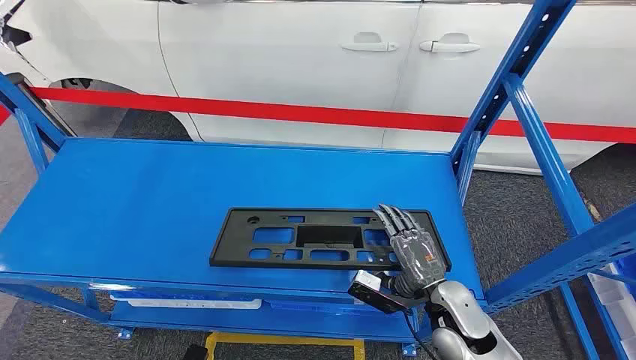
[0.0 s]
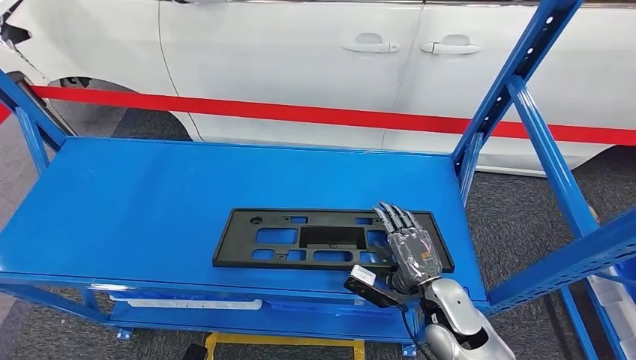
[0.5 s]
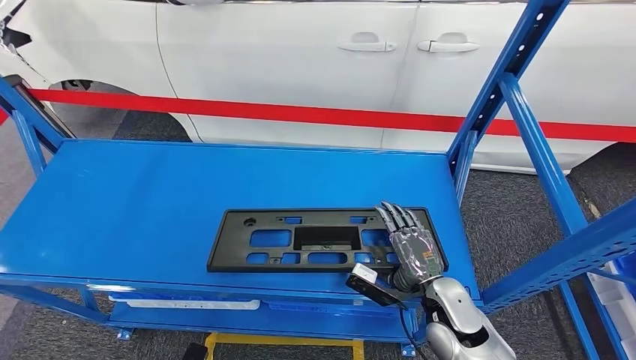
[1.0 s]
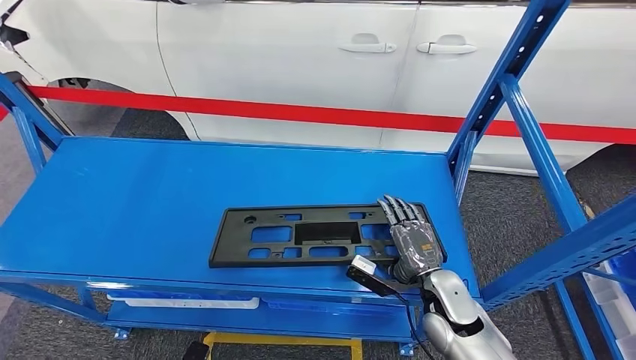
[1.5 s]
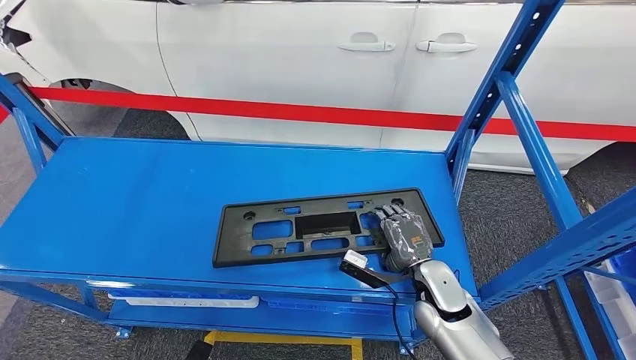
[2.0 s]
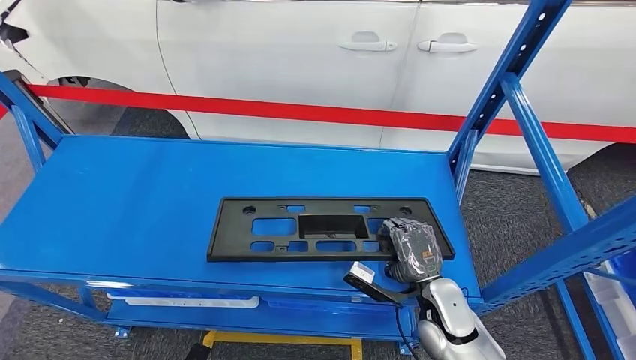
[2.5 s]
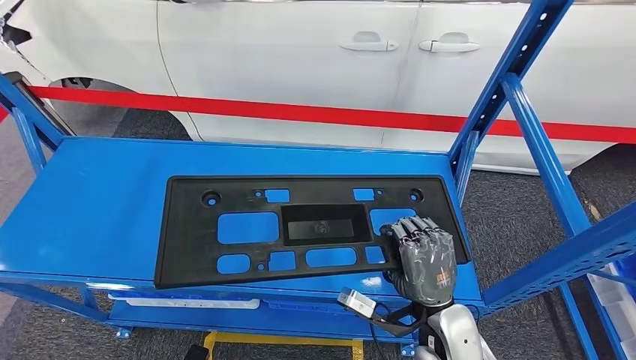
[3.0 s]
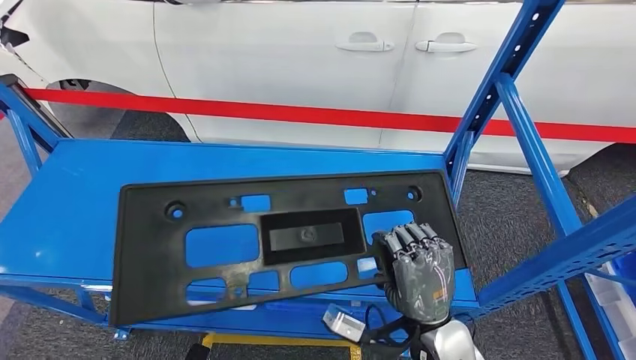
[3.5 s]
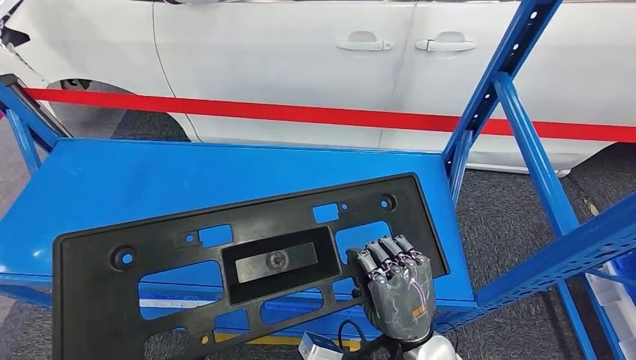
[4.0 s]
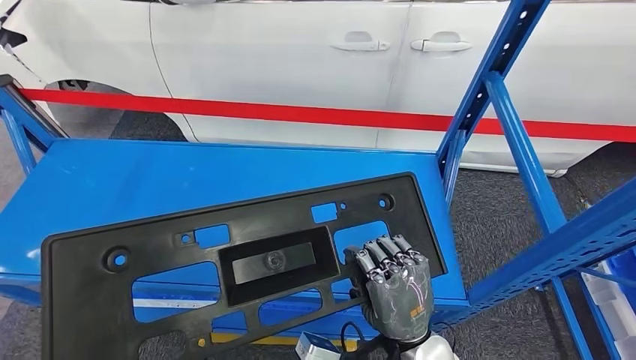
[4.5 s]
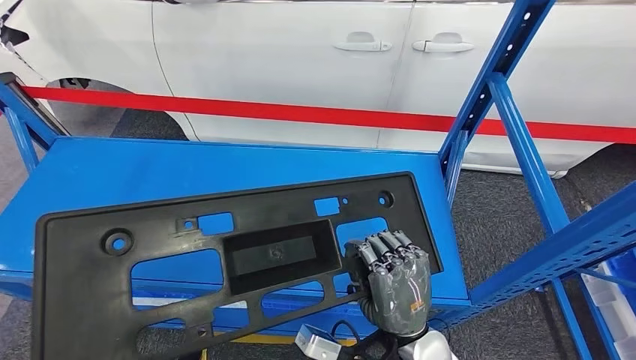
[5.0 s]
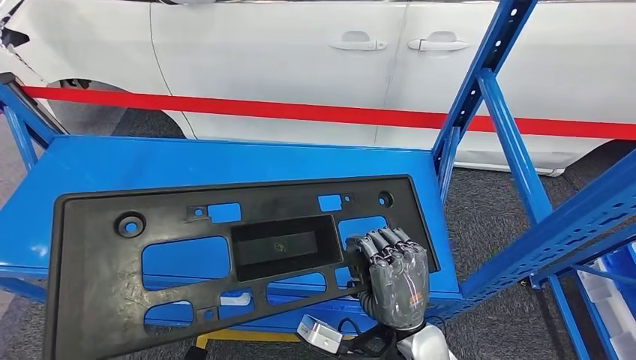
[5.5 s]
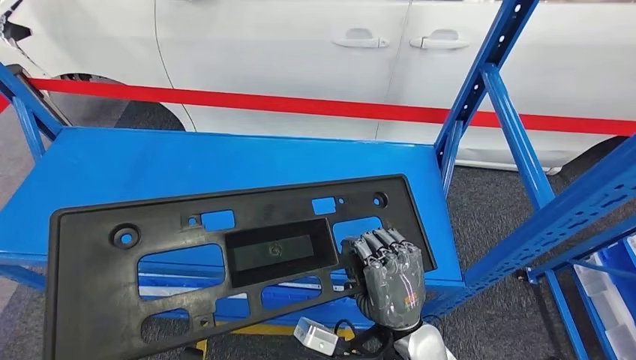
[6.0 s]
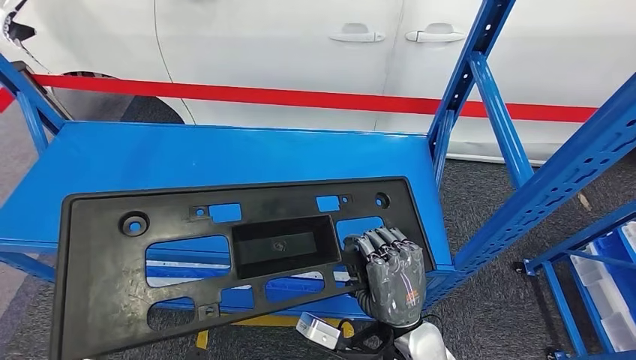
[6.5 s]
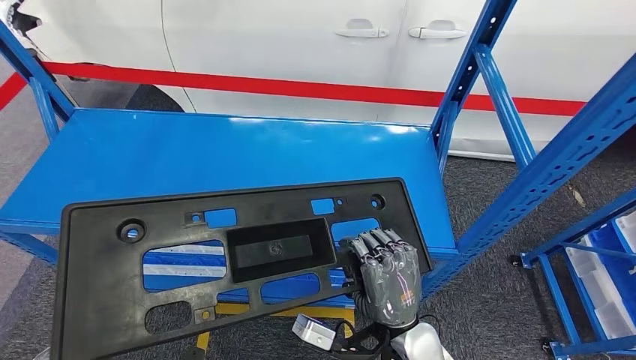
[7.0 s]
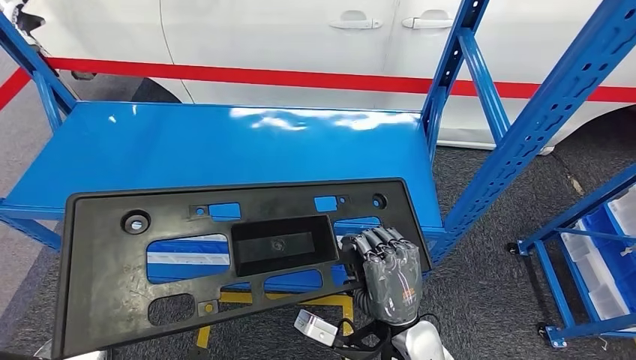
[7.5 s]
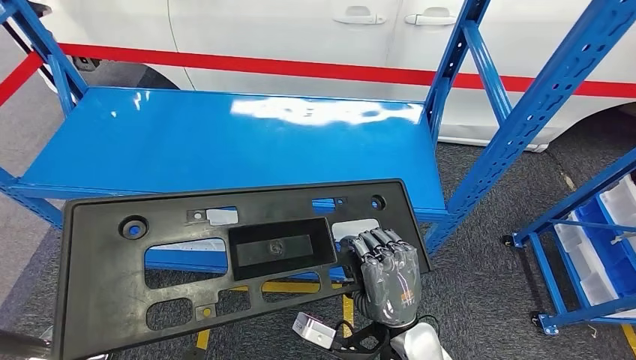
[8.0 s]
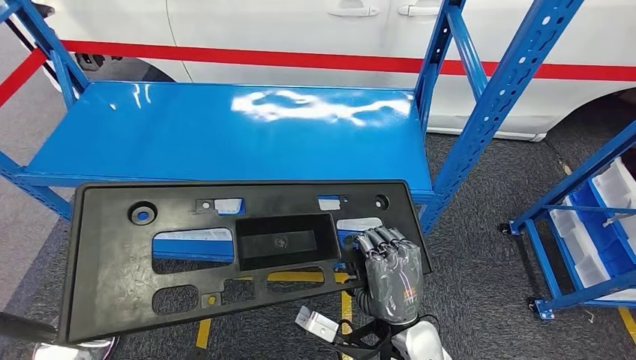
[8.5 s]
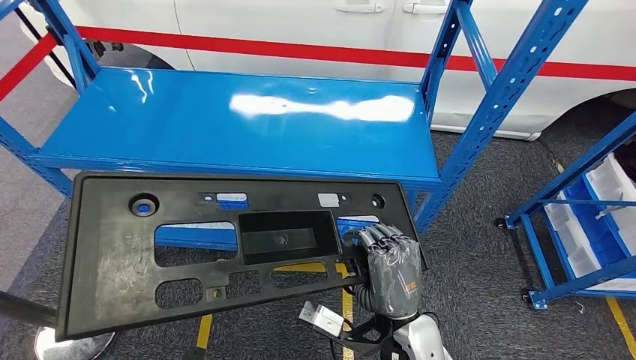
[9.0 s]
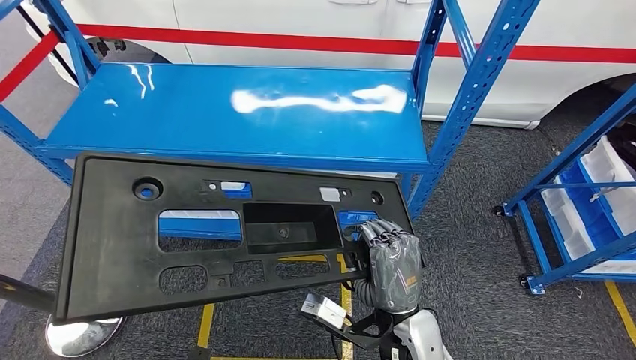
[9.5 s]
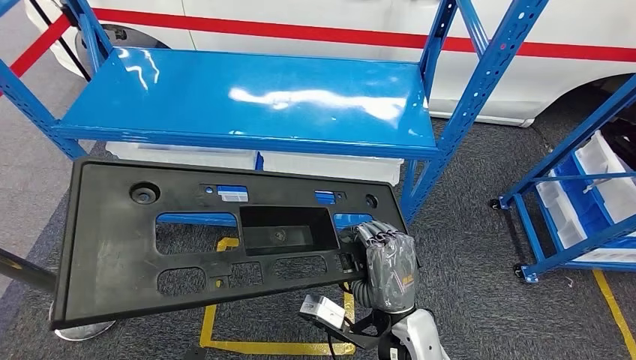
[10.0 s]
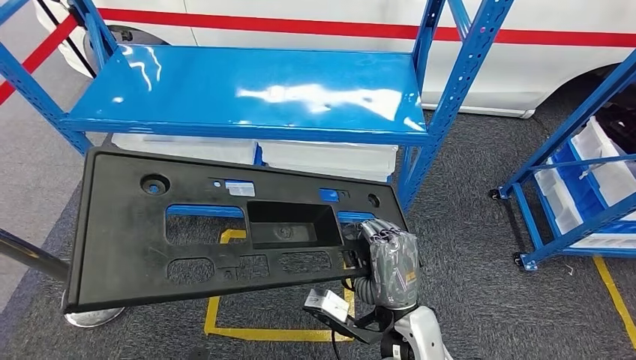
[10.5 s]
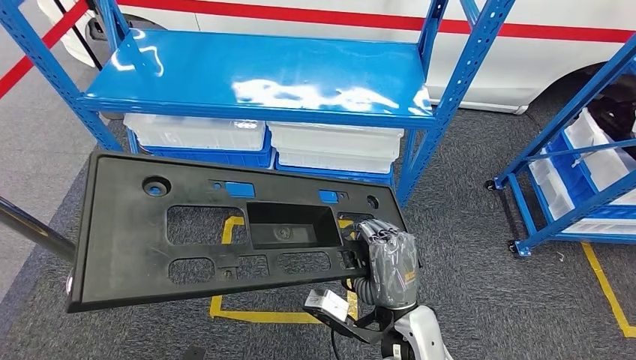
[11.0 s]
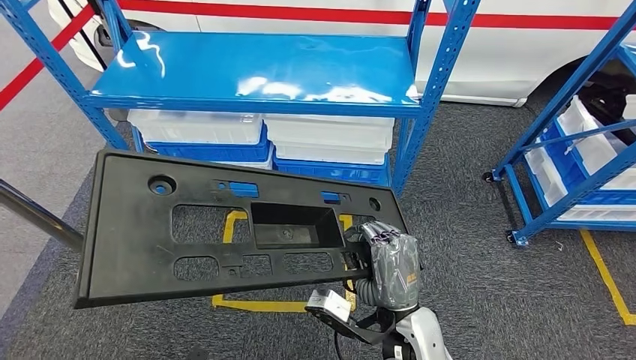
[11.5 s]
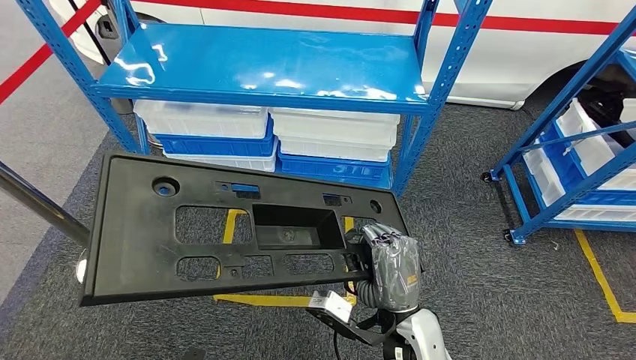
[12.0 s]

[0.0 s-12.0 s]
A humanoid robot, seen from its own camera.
Step, 0.0 to 7.5 s: Pick up the large material from the shelf.

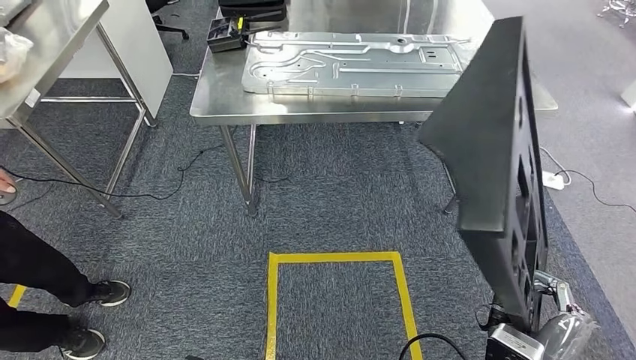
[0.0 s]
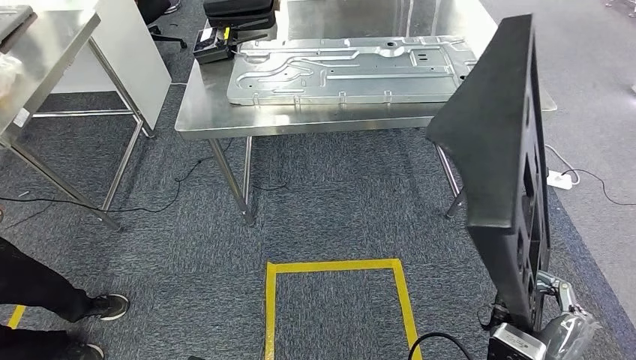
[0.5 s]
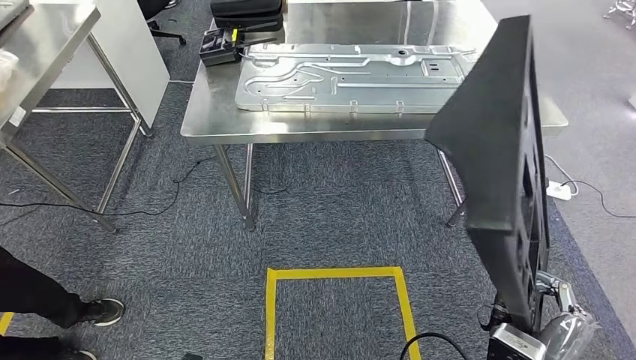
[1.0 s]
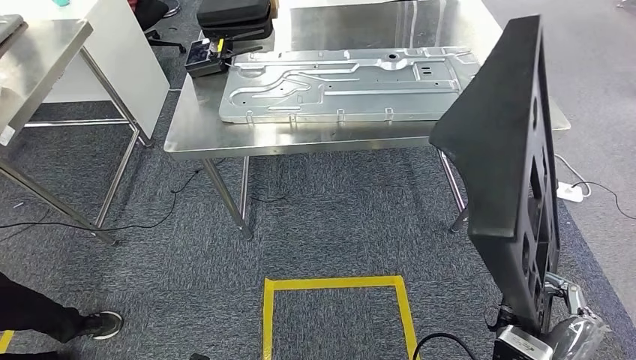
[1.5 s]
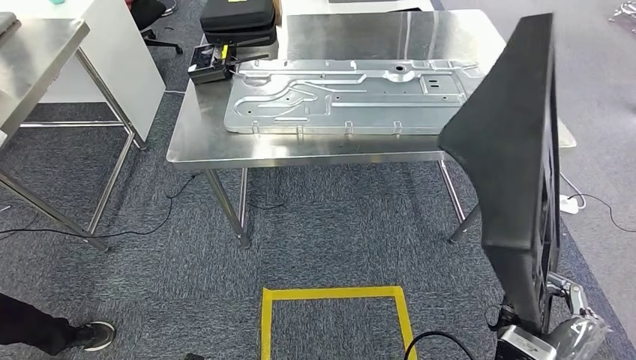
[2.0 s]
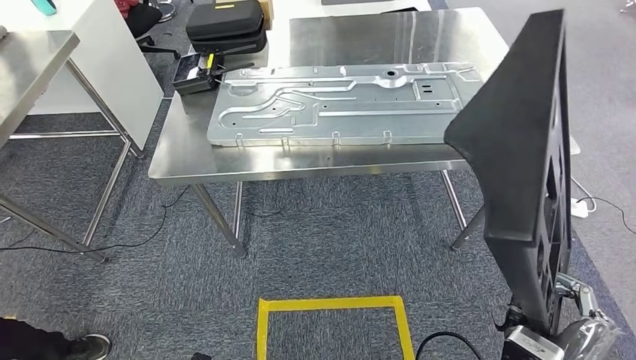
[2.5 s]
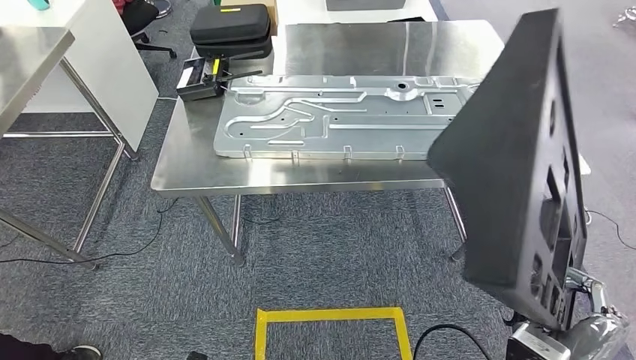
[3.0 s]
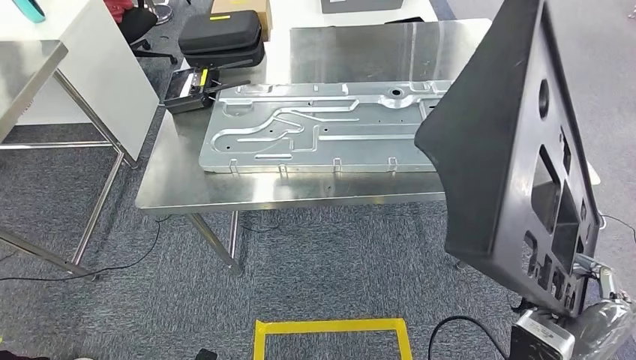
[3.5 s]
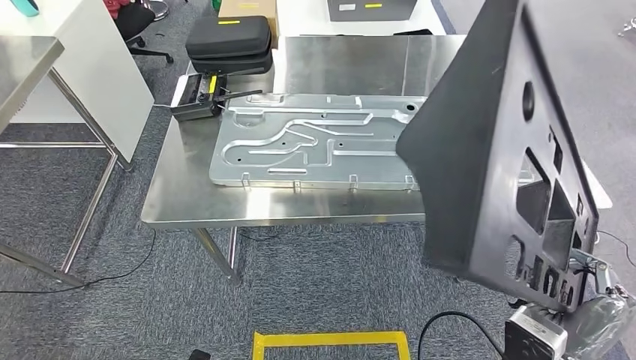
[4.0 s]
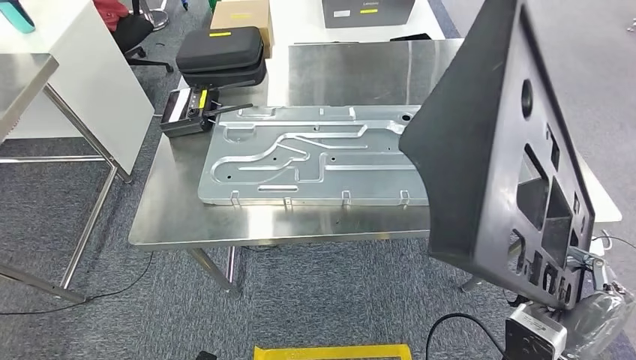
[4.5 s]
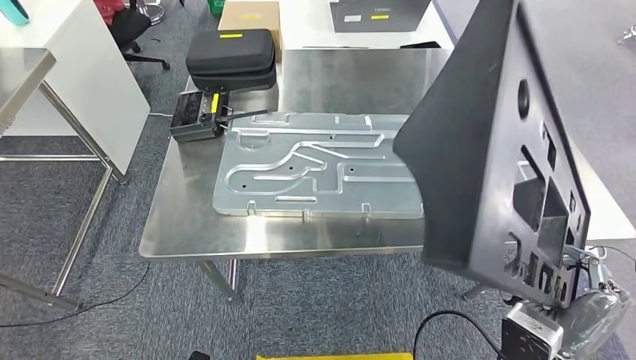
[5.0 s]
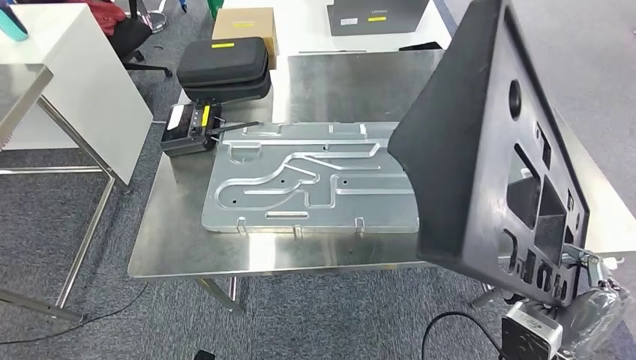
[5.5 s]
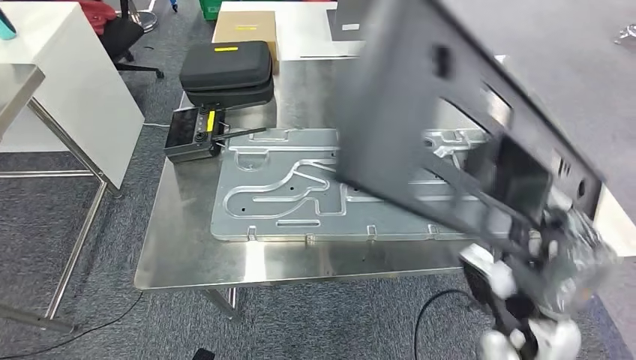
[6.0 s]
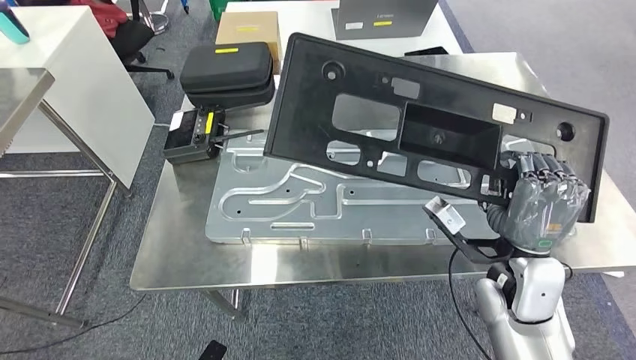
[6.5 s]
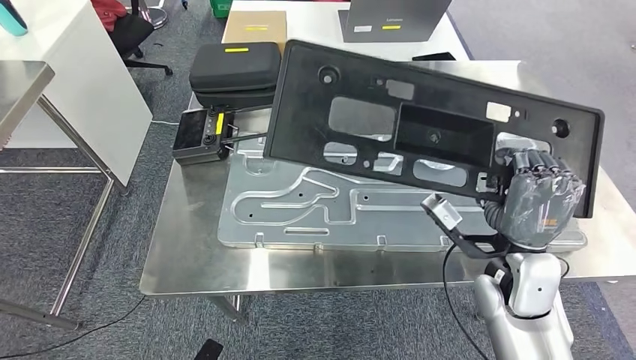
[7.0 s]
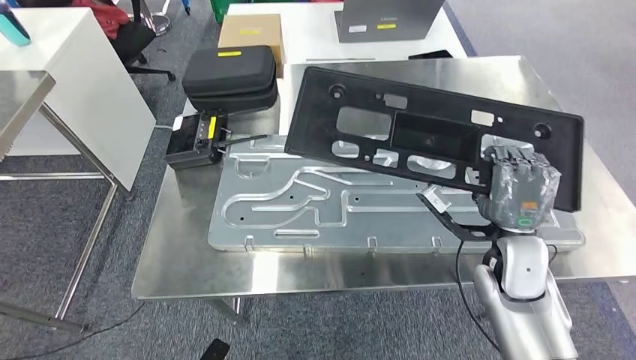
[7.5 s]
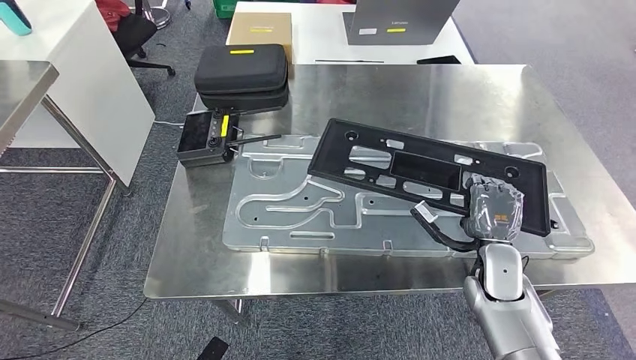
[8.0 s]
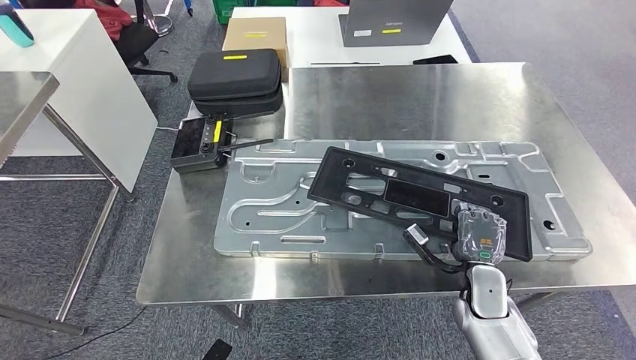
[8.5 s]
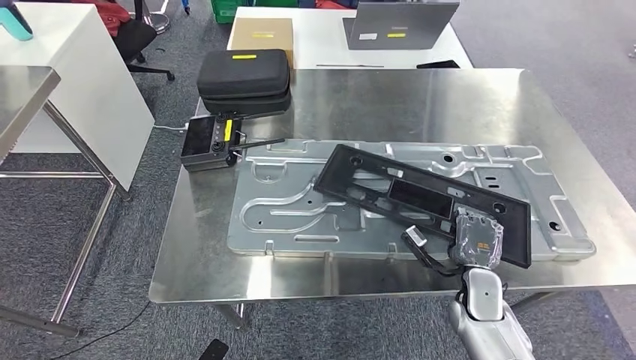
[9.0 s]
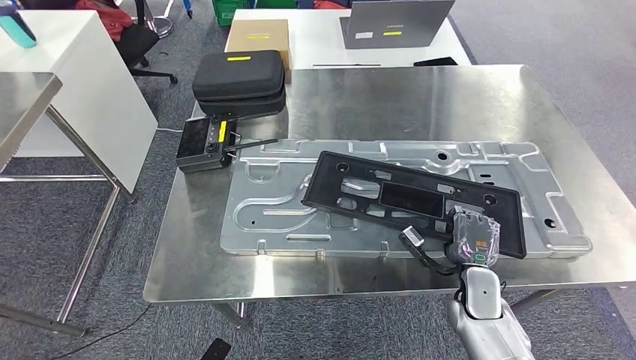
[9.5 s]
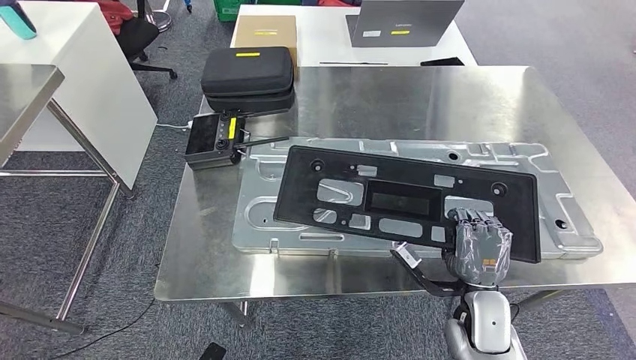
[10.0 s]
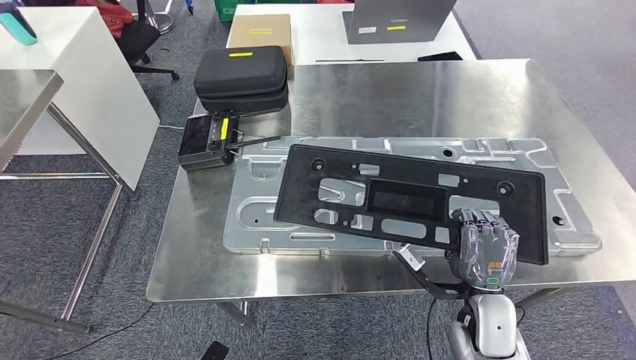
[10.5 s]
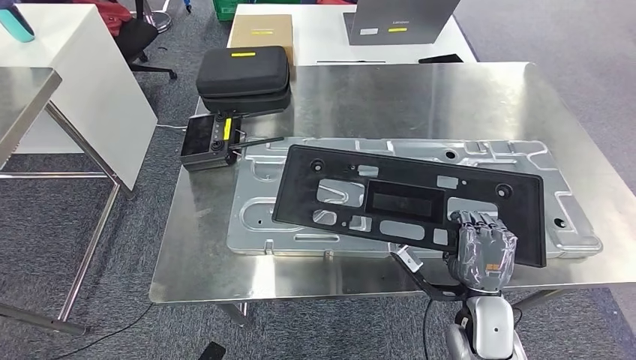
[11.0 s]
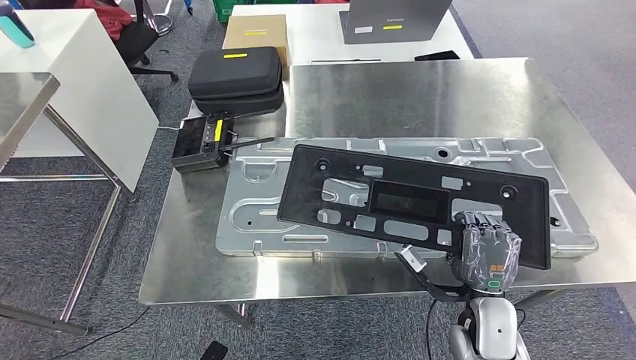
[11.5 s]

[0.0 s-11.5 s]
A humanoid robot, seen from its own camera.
Step, 0.0 to 3.5 s: Move the large material to the front of the workbench.
9.5 to 11.5 s: The right hand moves backward and upward, approximately 5 cm.
